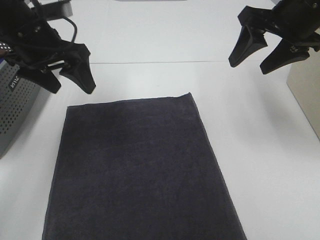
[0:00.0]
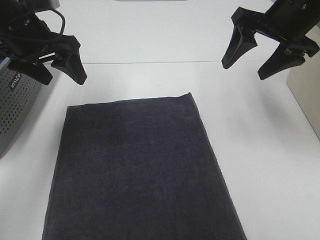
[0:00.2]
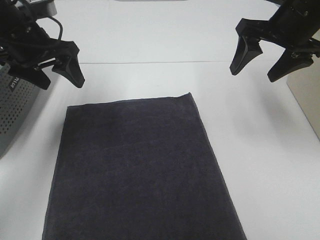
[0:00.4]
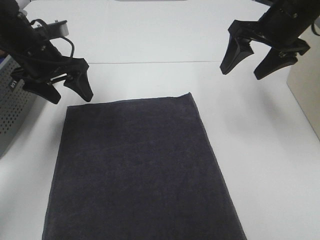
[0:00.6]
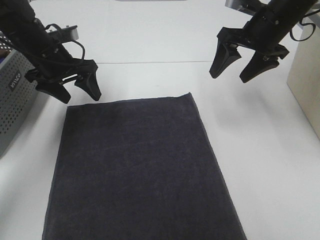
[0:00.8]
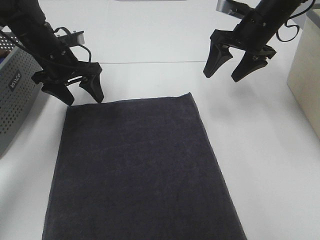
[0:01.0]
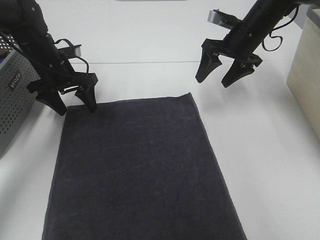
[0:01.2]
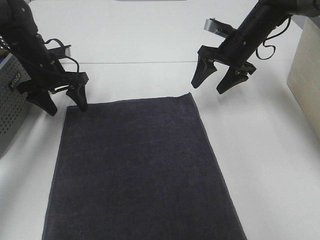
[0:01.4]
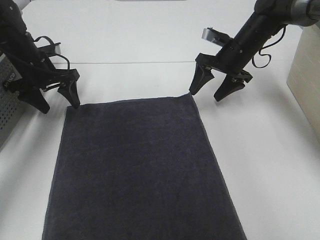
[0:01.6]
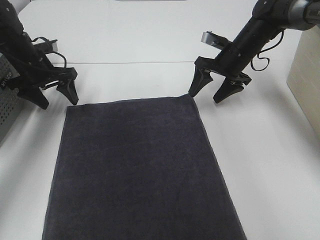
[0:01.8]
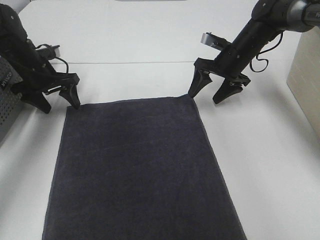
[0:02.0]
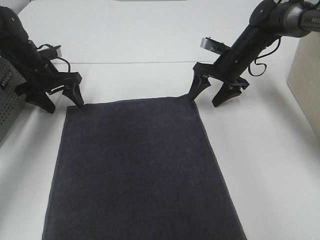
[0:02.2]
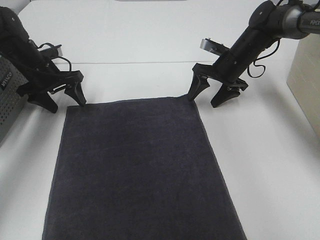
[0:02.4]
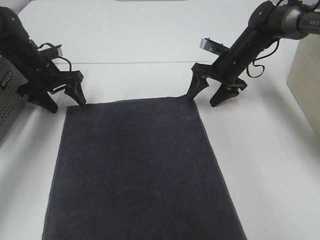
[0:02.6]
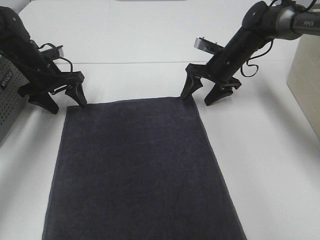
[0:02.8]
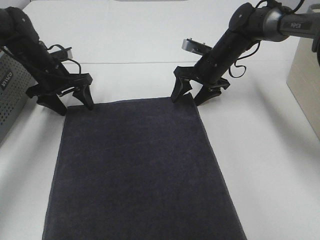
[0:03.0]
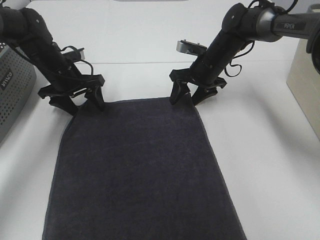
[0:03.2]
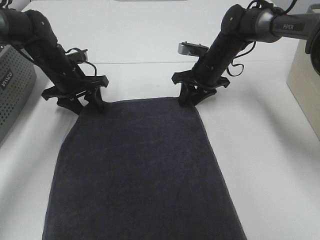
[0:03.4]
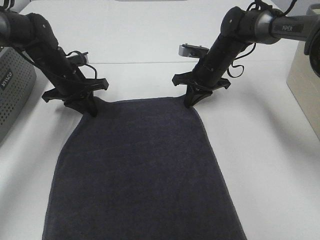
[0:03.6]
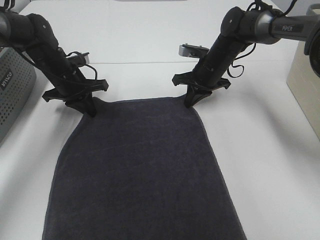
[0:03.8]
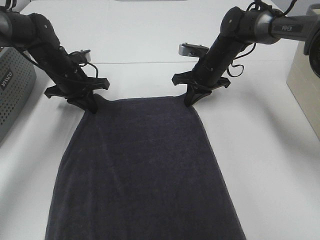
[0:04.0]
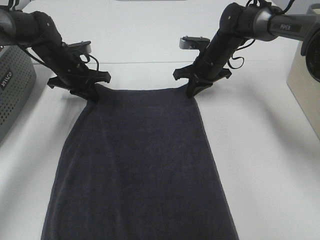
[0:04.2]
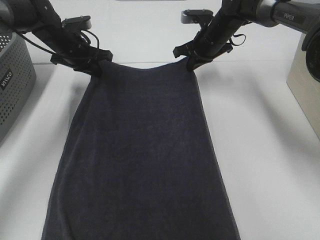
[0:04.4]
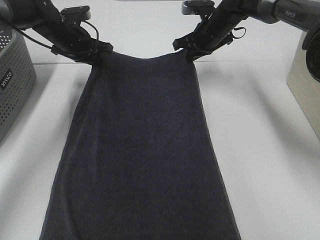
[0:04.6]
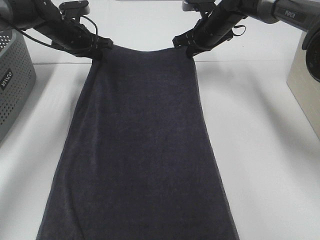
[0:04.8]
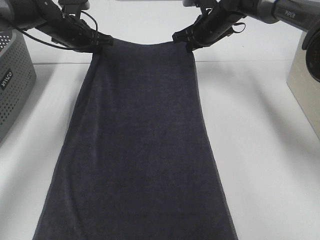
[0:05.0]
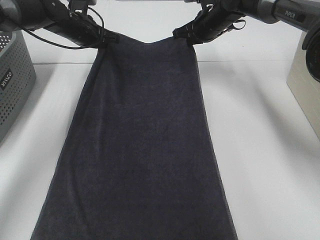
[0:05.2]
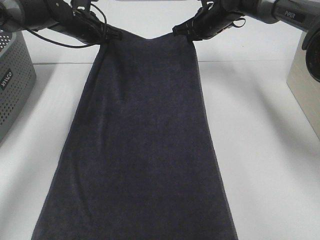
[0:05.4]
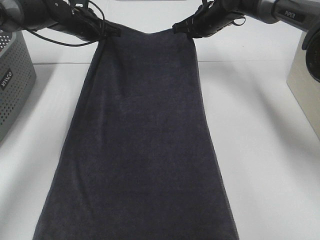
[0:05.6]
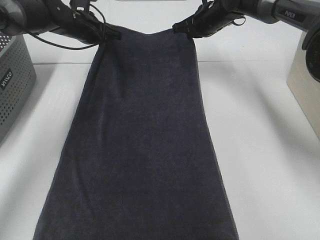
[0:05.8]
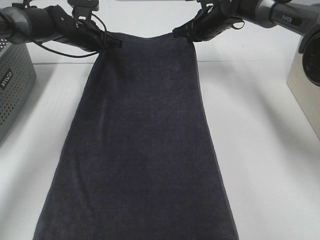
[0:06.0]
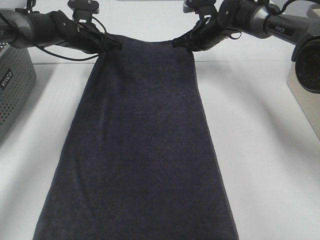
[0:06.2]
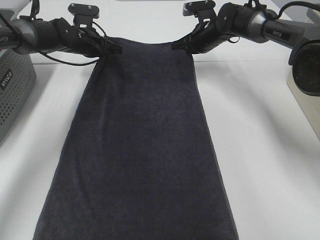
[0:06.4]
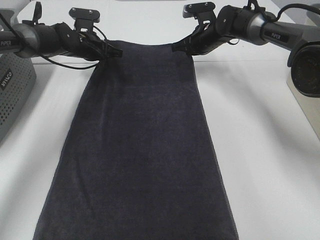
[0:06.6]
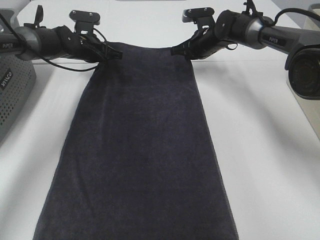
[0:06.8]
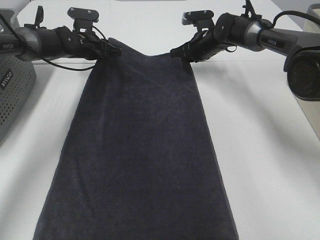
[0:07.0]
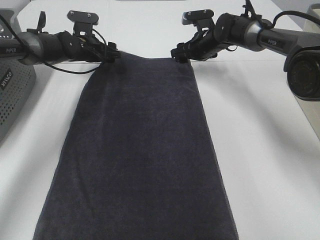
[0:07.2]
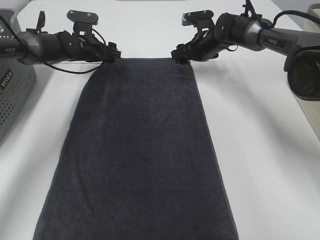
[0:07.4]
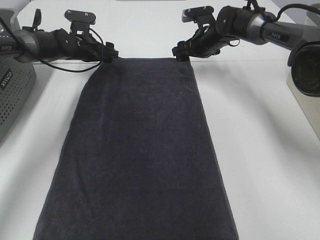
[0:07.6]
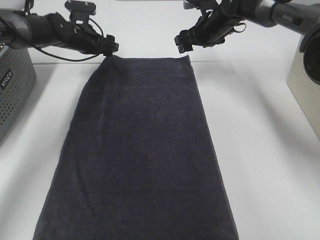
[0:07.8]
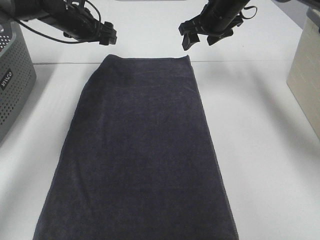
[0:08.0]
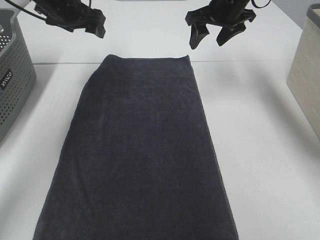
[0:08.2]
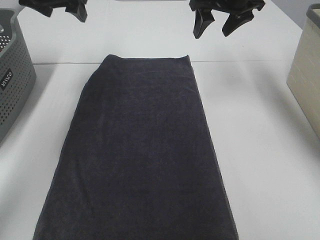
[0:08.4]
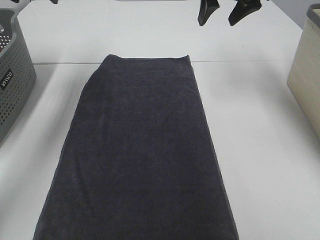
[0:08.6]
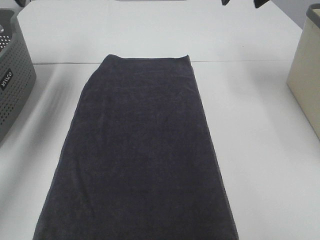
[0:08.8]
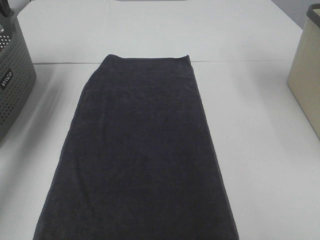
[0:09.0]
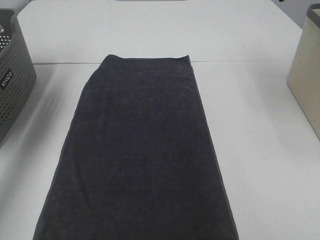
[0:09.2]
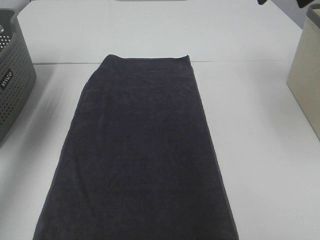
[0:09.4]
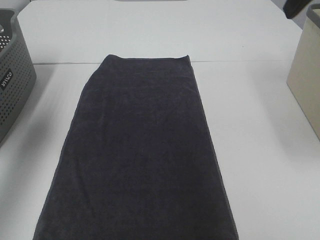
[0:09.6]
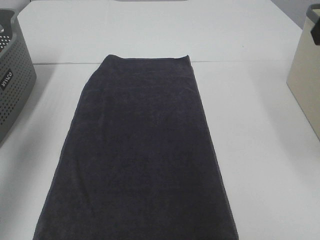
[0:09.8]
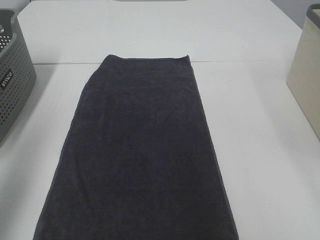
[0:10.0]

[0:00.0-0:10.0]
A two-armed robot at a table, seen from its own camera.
Task of the whole recording: Remove the towel and place it.
0:00.0 to 0:01.4: The left gripper is displaced downward, forward and to the left by roughly 15 cm. The right gripper goes roughly 20 cm forward and downward.
0:01.4 to 0:02.8: The right gripper heads downward, covering about 5 cm.
0:02.8 to 0:04.2: The right gripper closes its fingers. The left gripper shifts approximately 5 cm to the right, and closes its fingers.
0:04.2 to 0:05.8: The left gripper goes about 10 cm forward and upward. Meanwhile the right gripper is displaced upward and forward by approximately 10 cm.
0:05.8 to 0:07.2: Both grippers move downward, some 5 cm. The left gripper opens. The right gripper opens.
0:07.2 to 0:08.6: The grippers both shift upward and backward by some 25 cm.
0:08.6 to 0:10.0: Both grippers travel together backward, about 30 cm.

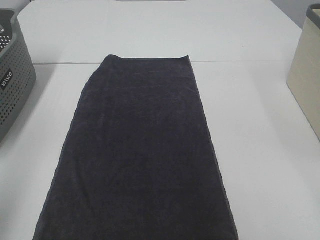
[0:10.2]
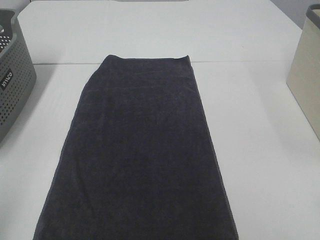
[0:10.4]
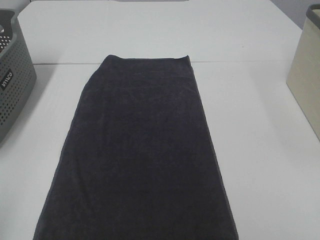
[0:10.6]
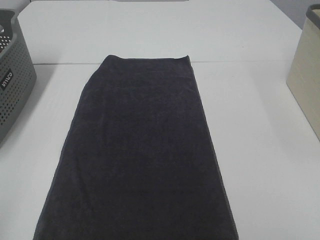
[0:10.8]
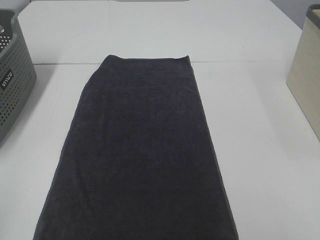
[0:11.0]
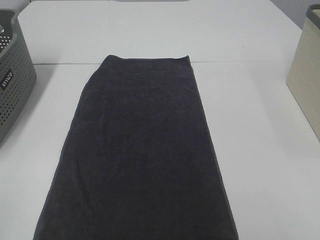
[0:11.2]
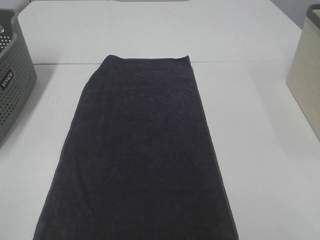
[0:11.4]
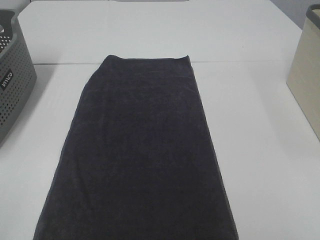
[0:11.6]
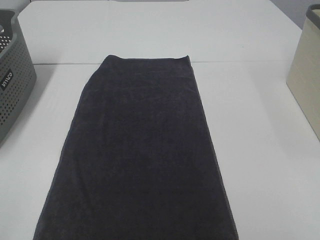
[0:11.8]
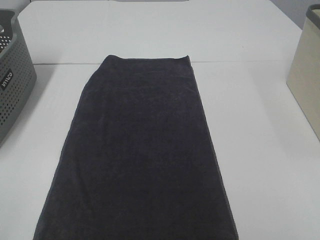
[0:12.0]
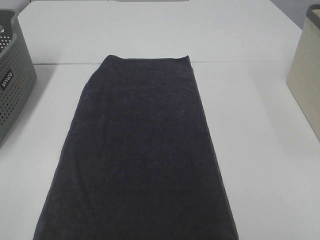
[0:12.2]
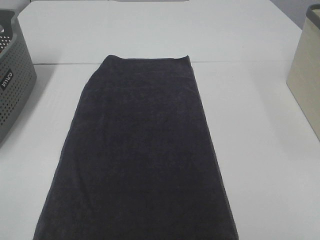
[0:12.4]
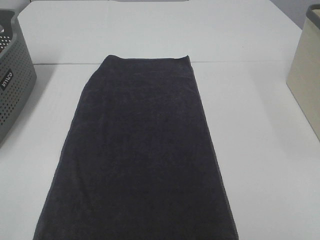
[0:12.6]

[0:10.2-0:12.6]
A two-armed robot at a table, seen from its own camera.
Task of the whole recording: Remove the towel and place it.
0:10.2 to 0:11.4: The left gripper shifts about 15 cm backward and downward.
0:11.4 to 0:12.6: Both grippers stay about where they are.

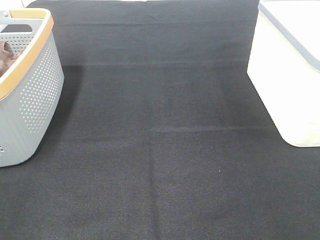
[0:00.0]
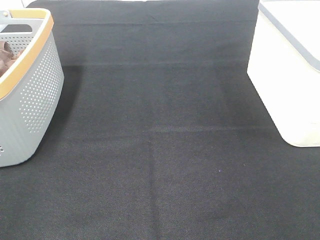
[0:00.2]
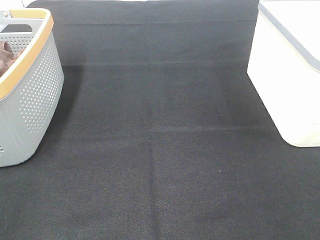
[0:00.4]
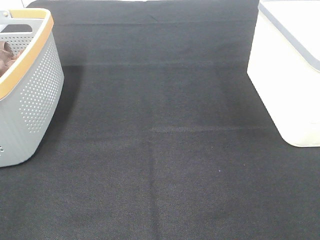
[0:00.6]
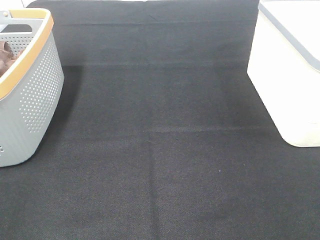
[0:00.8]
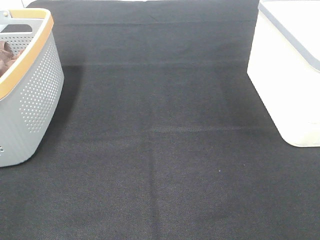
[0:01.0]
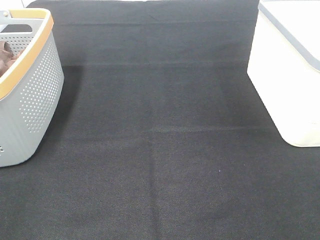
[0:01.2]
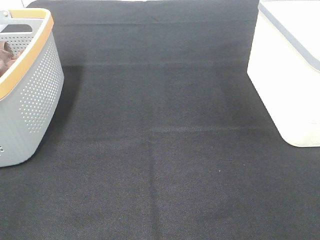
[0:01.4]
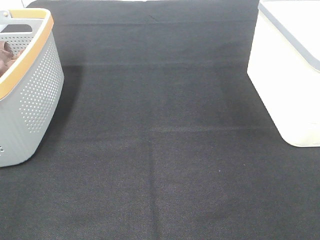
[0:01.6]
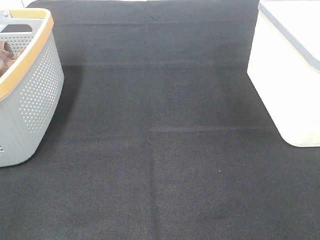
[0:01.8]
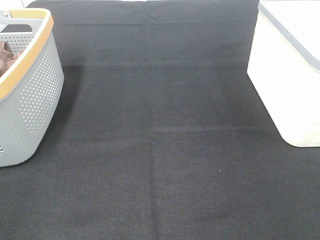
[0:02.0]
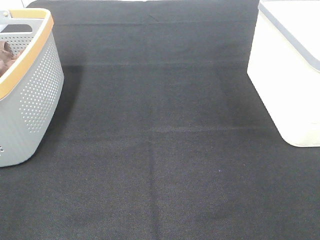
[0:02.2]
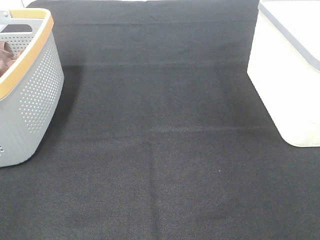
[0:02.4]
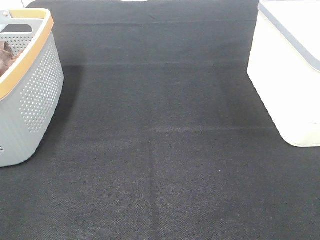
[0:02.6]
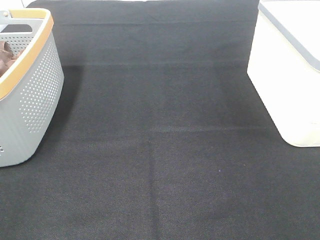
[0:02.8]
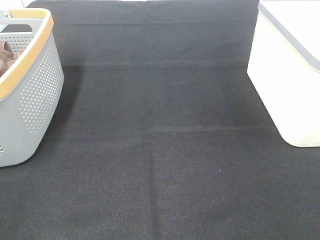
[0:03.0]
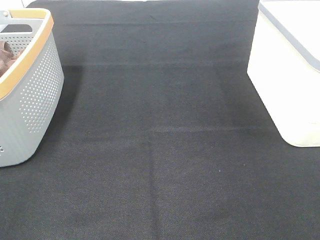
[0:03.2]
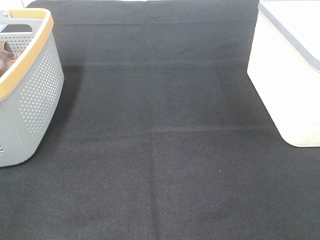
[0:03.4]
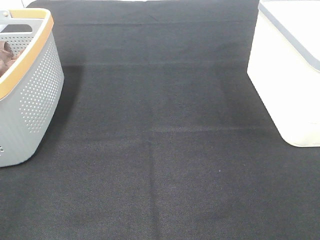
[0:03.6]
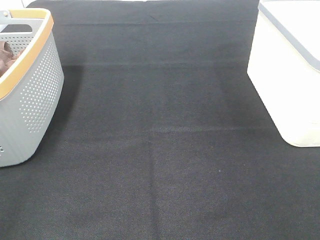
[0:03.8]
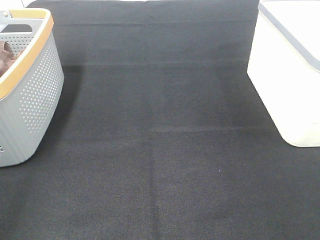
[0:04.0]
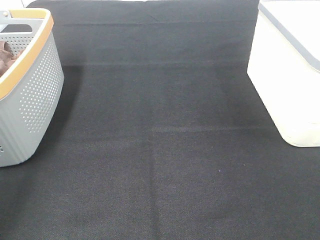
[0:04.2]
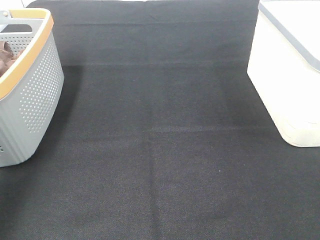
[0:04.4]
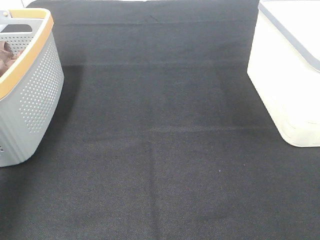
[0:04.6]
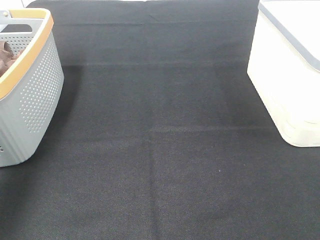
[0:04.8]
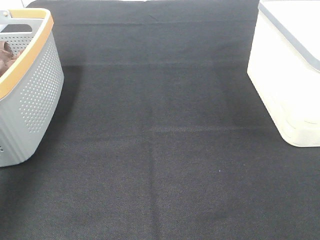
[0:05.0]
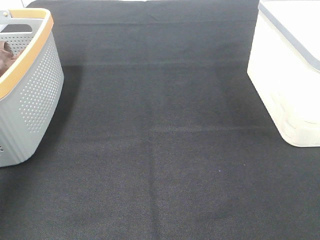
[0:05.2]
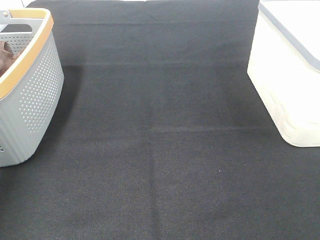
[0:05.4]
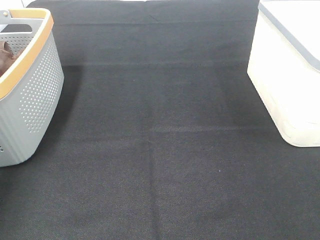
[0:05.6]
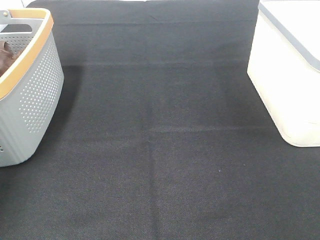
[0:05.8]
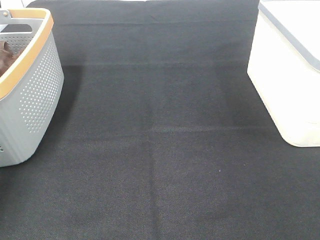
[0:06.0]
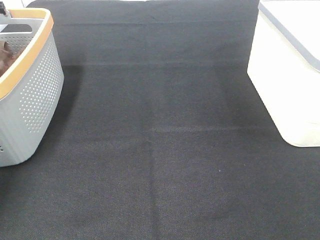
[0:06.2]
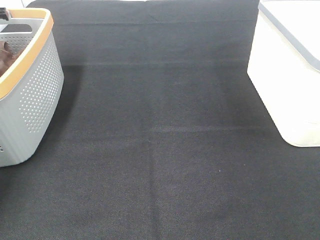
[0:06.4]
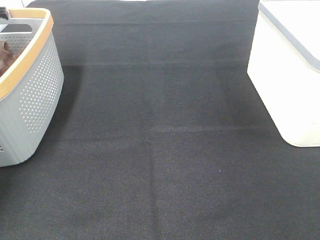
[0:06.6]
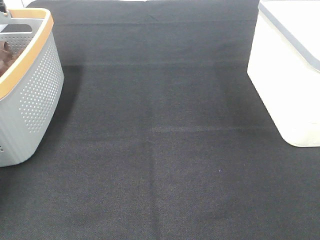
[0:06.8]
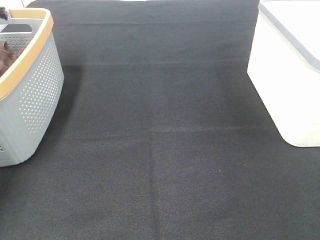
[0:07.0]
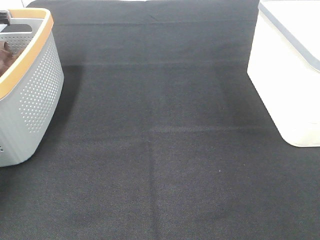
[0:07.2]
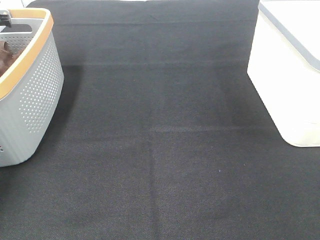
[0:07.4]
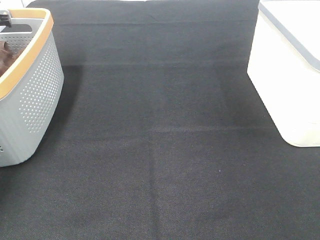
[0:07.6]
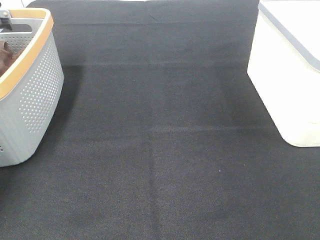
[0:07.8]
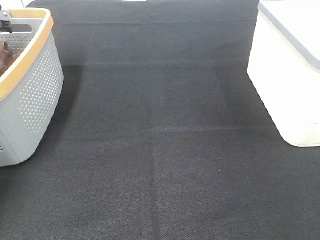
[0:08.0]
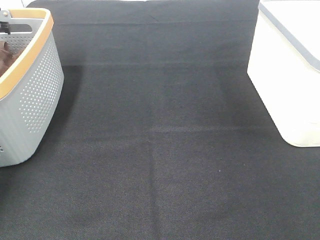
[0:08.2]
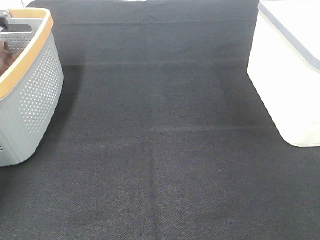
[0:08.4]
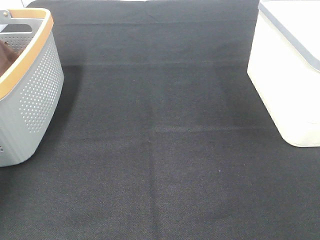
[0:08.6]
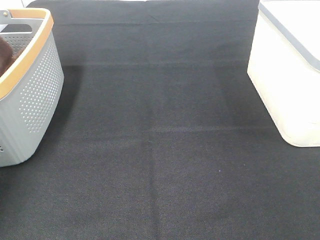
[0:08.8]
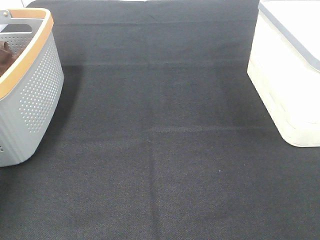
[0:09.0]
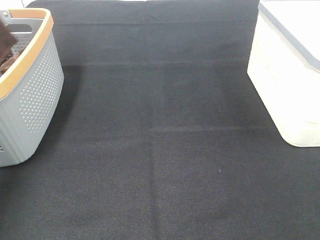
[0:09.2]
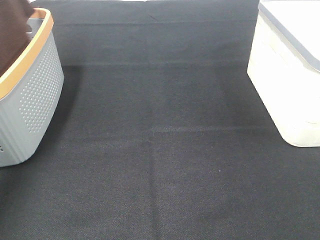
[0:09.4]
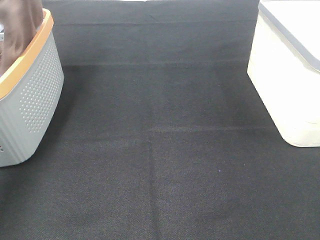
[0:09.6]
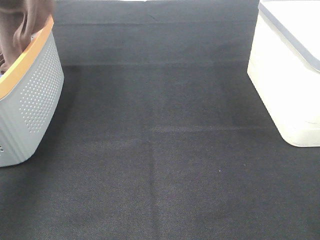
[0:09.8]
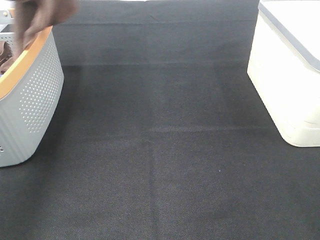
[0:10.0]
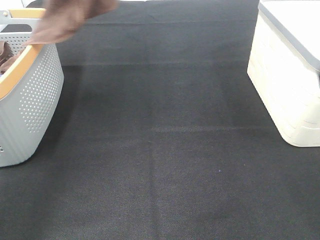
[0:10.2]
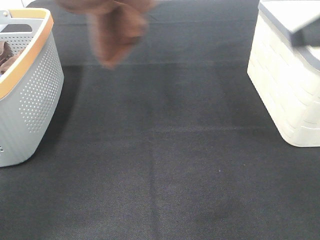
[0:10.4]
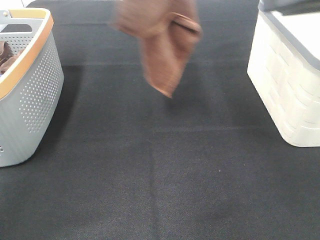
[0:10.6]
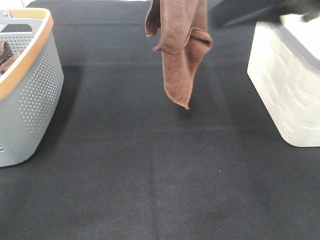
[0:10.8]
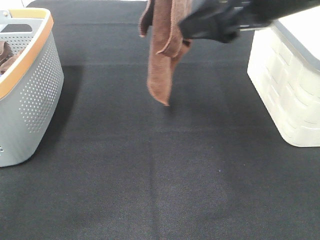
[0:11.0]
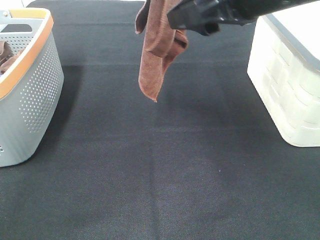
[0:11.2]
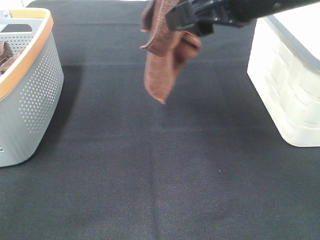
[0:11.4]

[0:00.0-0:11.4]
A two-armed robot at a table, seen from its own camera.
Task of the whole recording: Remove the towel and place it.
0:00.0 to 0:02.8: Both grippers stay put.
0:02.8 to 0:04.2: The left gripper moves forward and upward, approximately 15 cm.
0:04.2 to 0:05.6: The left gripper shifts some 30 cm forward.
0:08.6 to 0:10.0: The left gripper moves upward, to the right and backward, some 30 cm.
0:10.0 to 0:11.4: The right gripper is displaced forward and to the left by about 20 cm; the left gripper shifts some 15 cm to the right.
